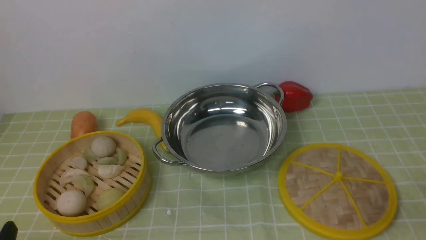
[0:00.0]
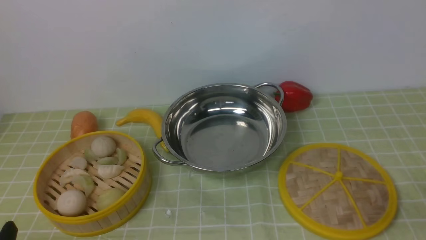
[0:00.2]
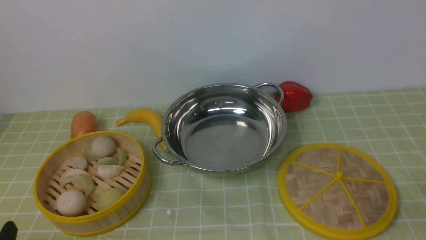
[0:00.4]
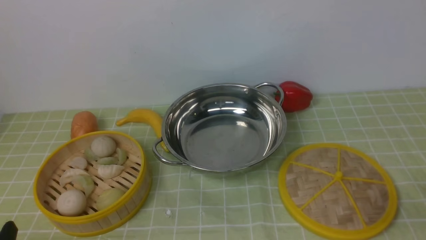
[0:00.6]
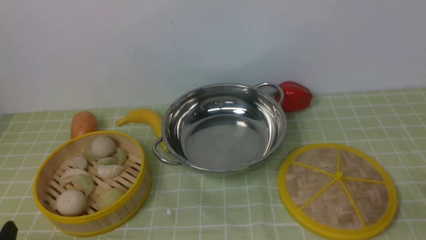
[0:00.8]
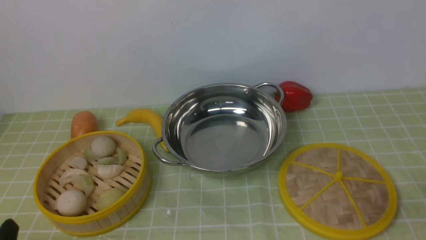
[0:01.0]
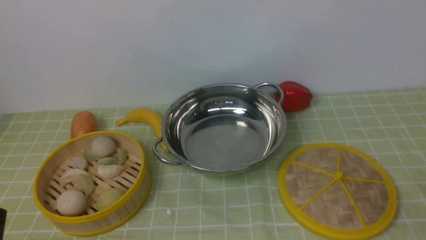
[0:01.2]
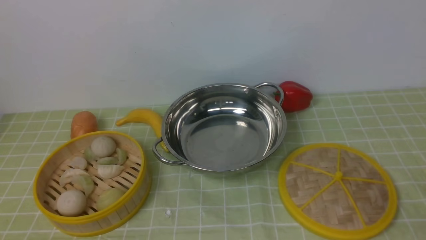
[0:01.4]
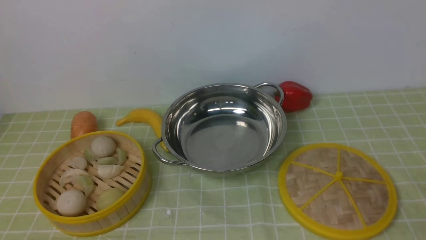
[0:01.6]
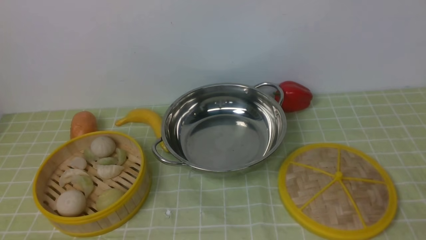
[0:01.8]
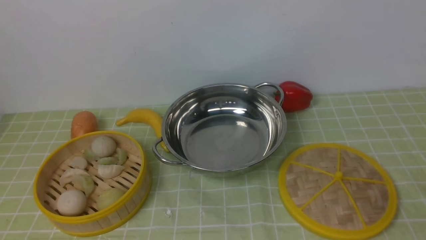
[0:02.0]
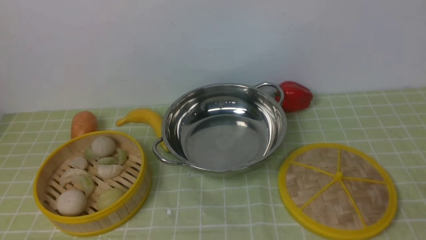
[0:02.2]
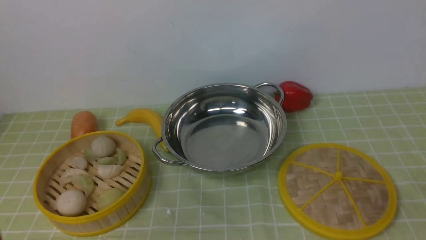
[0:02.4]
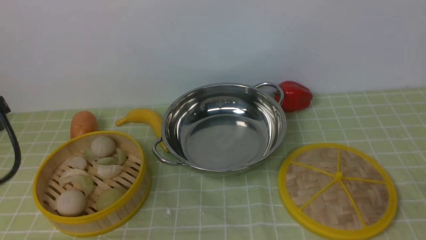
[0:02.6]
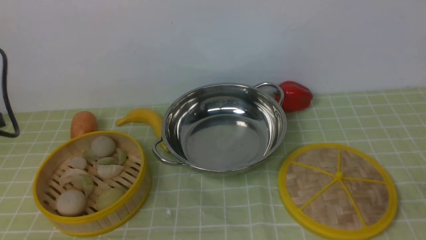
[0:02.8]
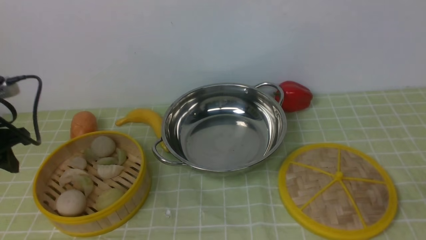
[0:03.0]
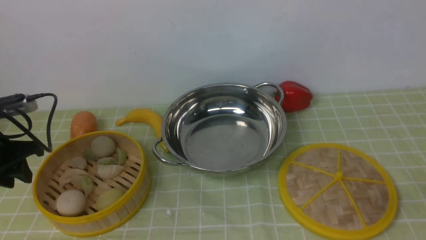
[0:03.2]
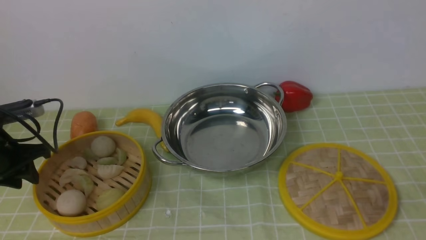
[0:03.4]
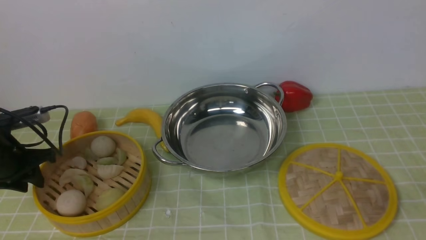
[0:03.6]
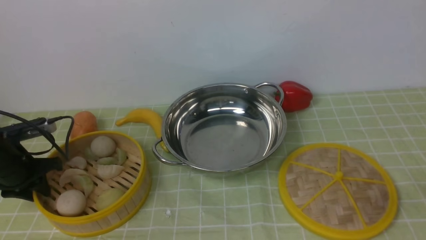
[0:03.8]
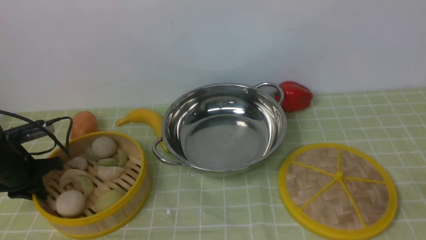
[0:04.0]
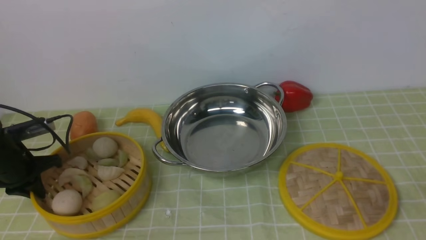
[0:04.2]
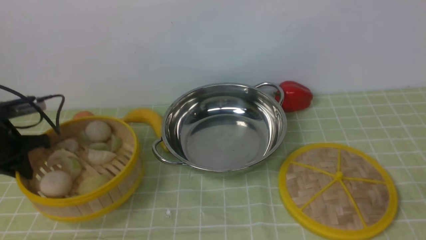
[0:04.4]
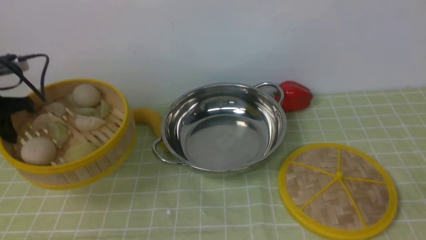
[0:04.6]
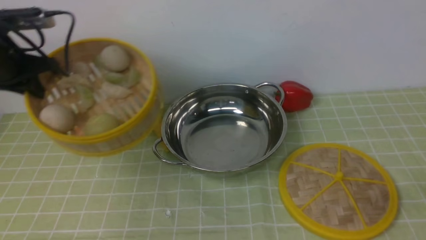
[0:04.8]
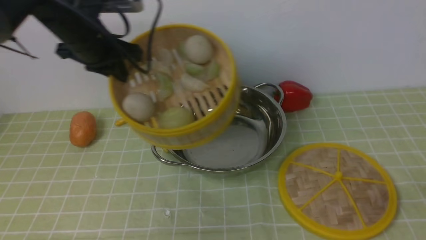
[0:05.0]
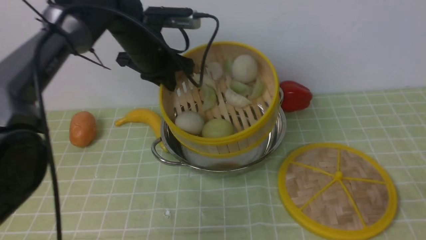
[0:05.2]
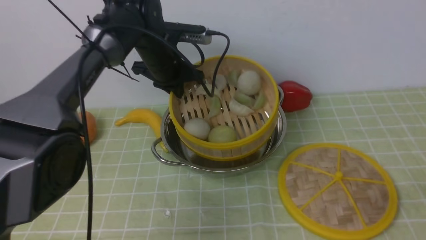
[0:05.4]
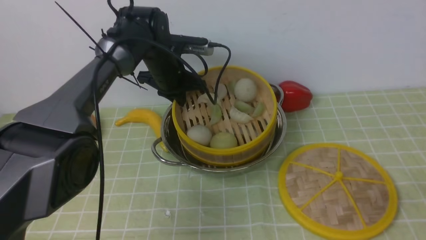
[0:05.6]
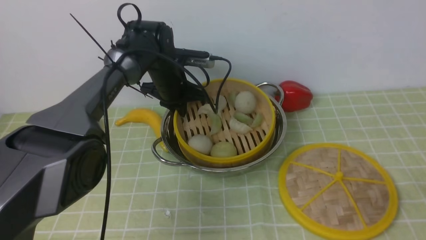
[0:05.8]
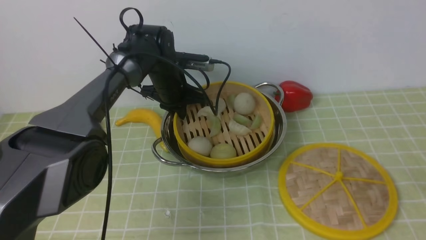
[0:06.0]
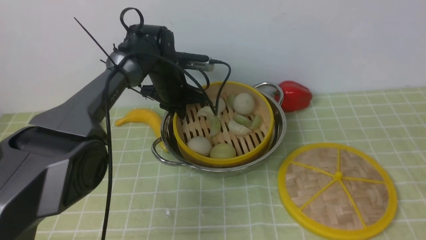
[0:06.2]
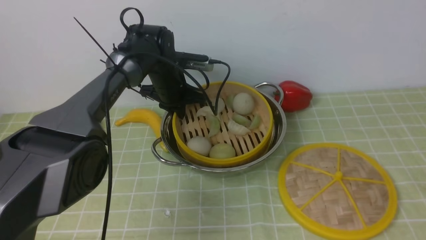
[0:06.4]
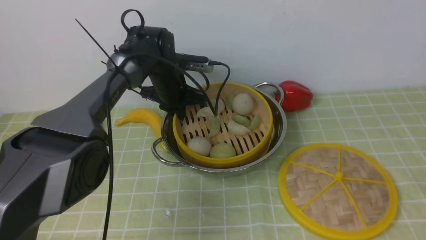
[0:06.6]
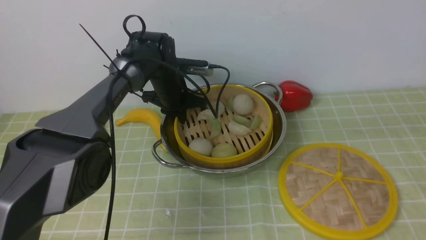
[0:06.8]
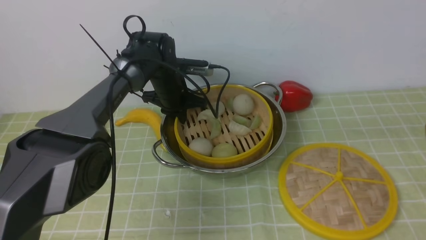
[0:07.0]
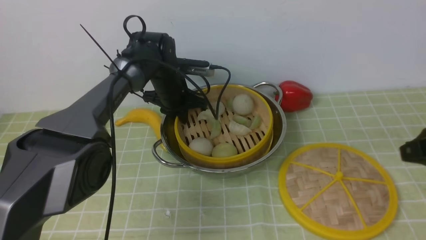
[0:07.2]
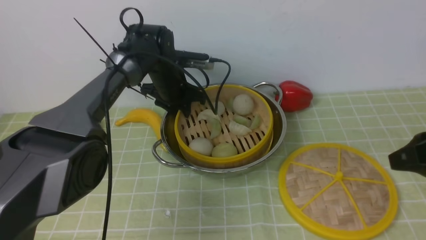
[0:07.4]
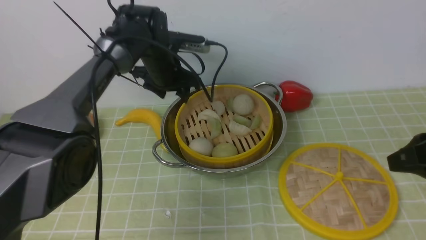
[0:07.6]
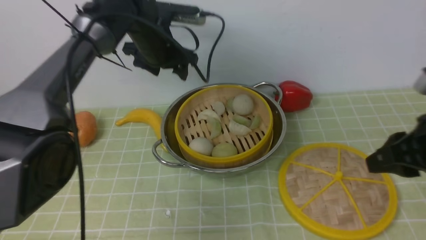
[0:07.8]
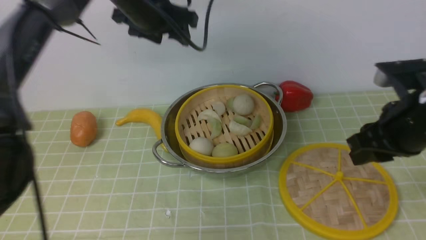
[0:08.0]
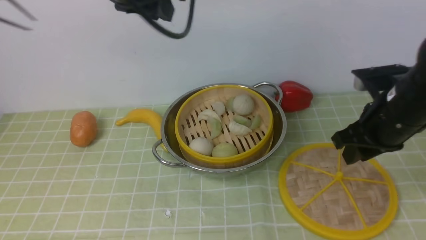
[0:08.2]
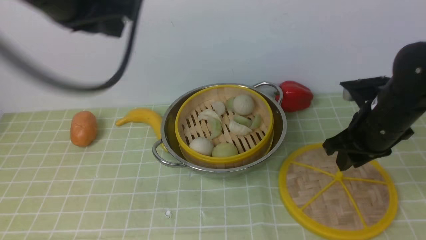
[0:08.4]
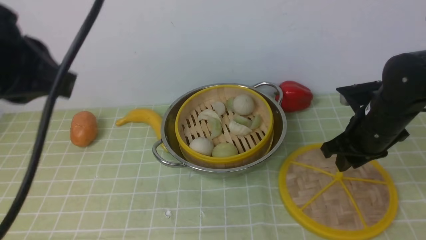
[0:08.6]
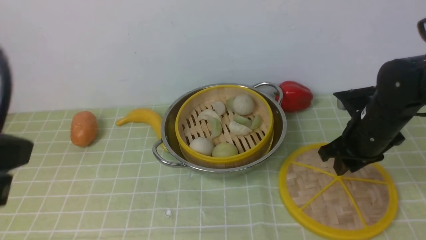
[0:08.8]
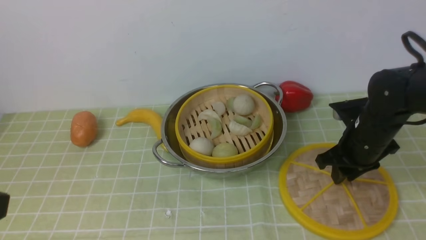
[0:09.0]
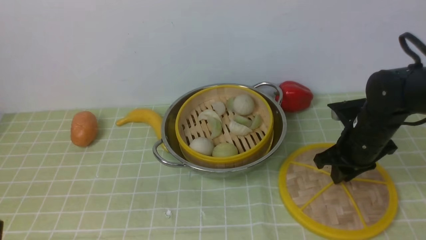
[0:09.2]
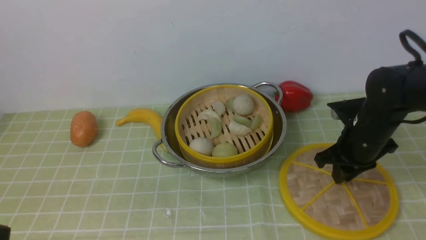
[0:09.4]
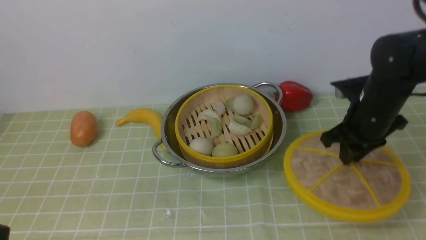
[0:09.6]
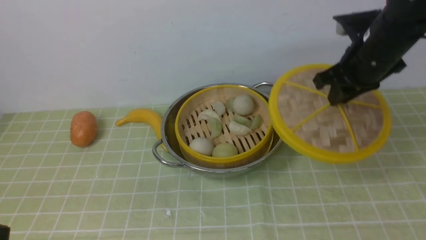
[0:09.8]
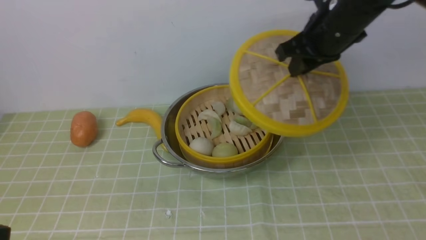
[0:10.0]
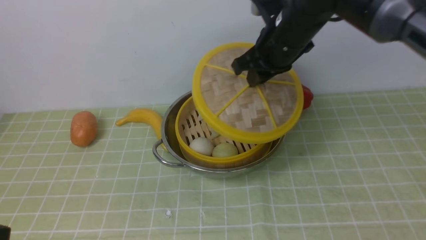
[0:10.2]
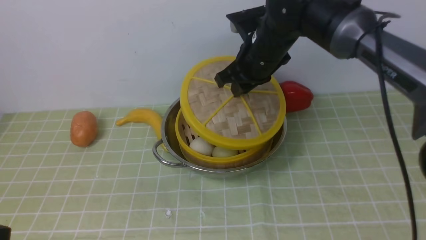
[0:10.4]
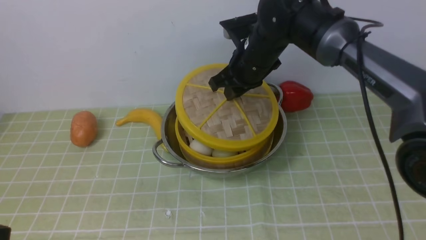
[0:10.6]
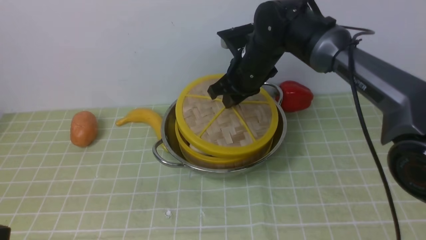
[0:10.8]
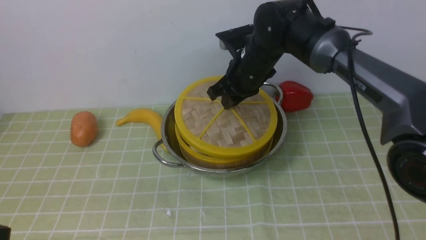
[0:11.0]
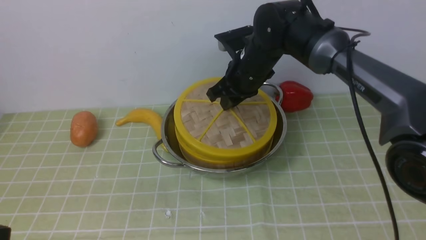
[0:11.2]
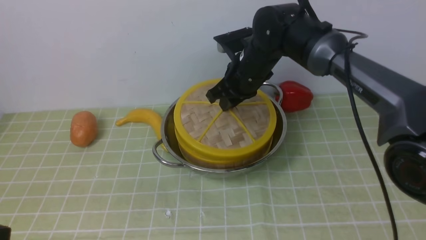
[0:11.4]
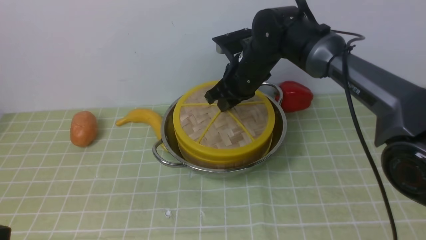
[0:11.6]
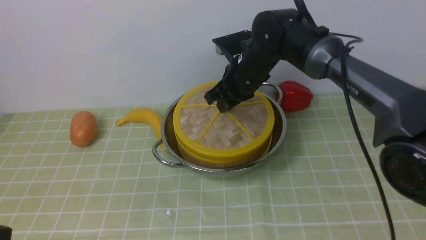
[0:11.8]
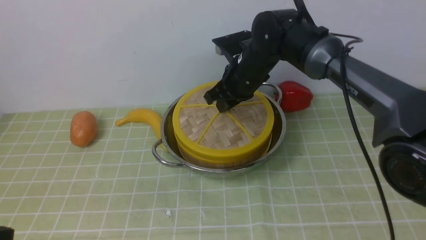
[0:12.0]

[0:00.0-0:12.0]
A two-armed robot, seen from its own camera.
Task of the whole recording: place the steamer in the pot on the green tablecloth, and put the lid on the steamer.
Step, 0:00.0 to 0:04.8: use the left arm to lift the steamer closest to it.
Step, 0:05.0 to 0:07.8: use the left arm to put the steamer into the iron steamer pot in the middle.
Step, 0:08.0 to 0:09.8: use the right arm to lift the lid of the steamer.
0:01.6 to 0:03.0: The left gripper moves forward, about 25 cm.
0:03.0 to 0:04.4: The left gripper travels forward and downward by roughly 10 cm, and closes up.
0:04.4 to 0:06.0: The right gripper heads upward, covering about 5 cm; the left gripper goes some 30 cm to the right and forward.
0:06.0 to 0:07.6: The right gripper moves forward, roughly 15 cm. Meanwhile the left gripper heads upward, covering approximately 5 cm, and opens up.
0:07.6 to 0:09.0: The right gripper goes roughly 15 cm forward and downward, while the left gripper shifts approximately 40 cm backward, and closes its fingers.
0:09.0 to 0:10.4: The right gripper moves to the left, upward and forward, approximately 20 cm.
0:10.4 to 0:12.0: The right gripper shifts some 5 cm downward.

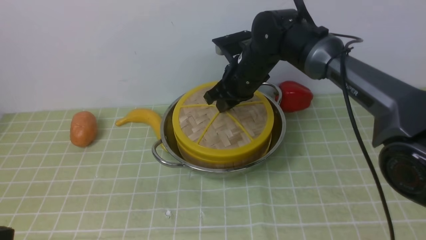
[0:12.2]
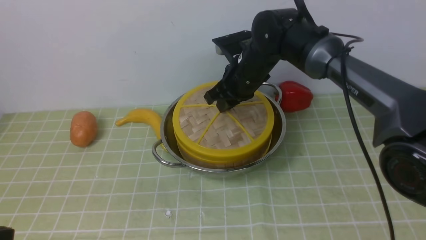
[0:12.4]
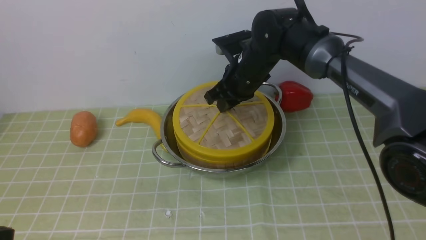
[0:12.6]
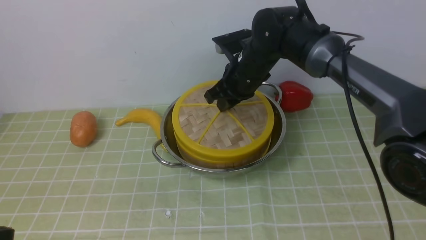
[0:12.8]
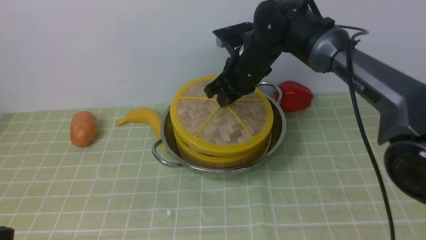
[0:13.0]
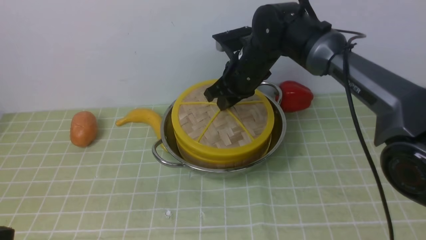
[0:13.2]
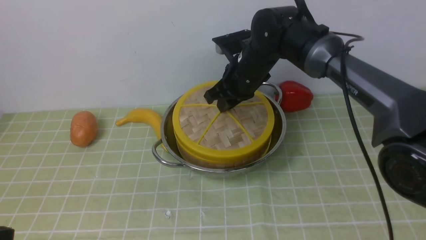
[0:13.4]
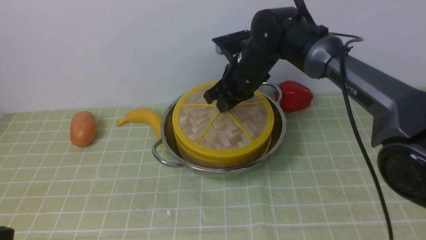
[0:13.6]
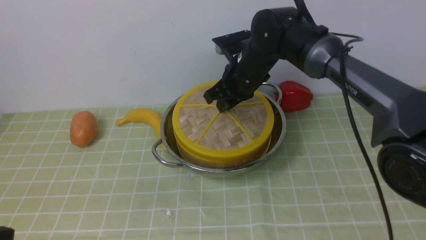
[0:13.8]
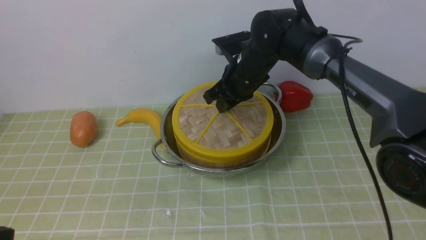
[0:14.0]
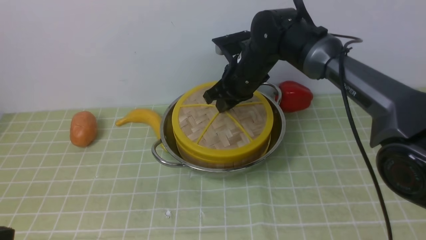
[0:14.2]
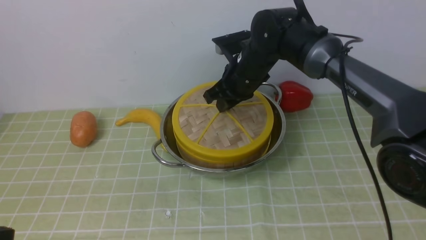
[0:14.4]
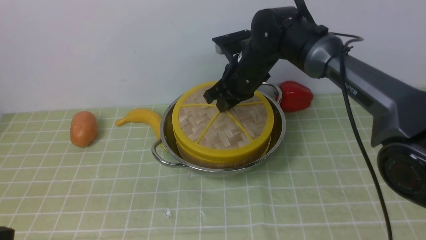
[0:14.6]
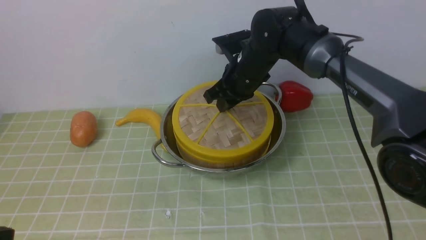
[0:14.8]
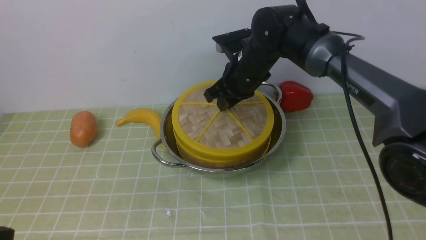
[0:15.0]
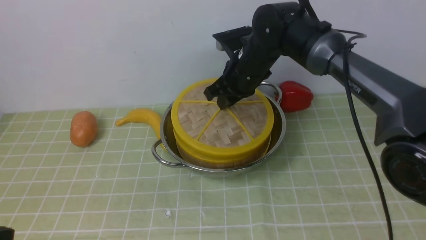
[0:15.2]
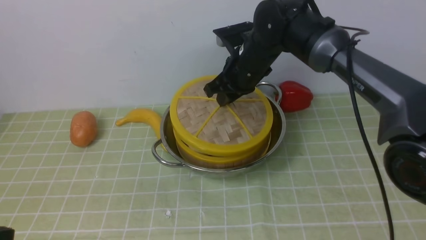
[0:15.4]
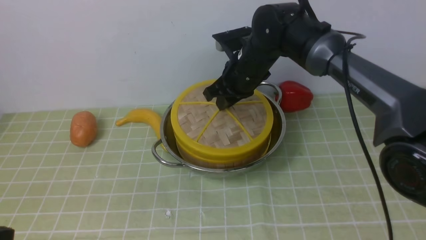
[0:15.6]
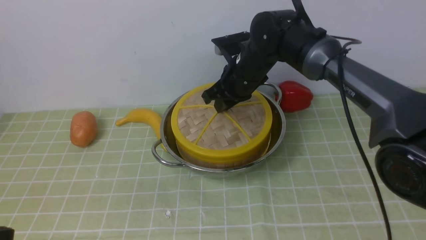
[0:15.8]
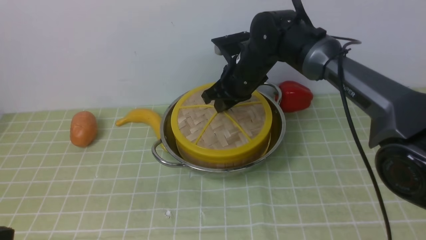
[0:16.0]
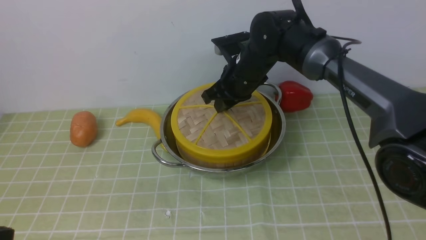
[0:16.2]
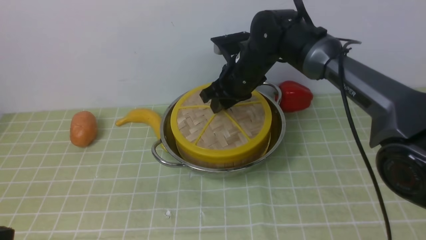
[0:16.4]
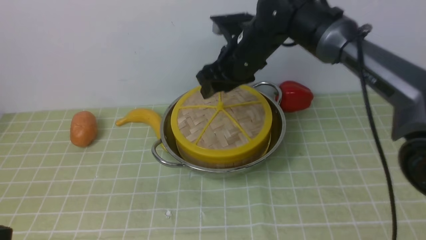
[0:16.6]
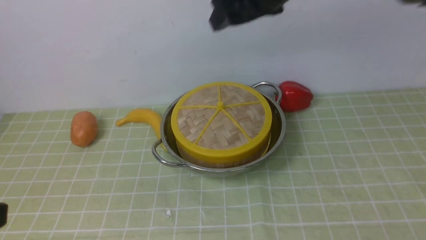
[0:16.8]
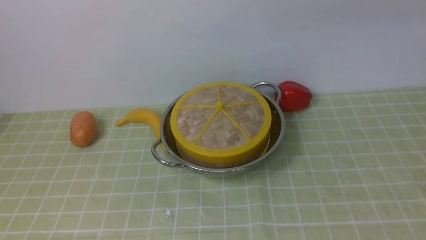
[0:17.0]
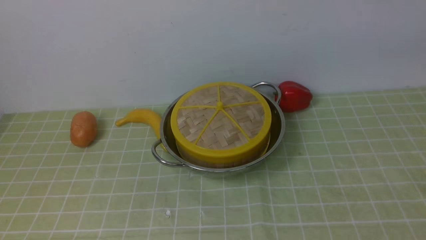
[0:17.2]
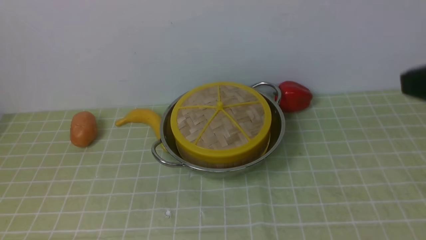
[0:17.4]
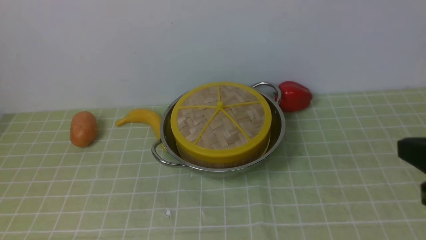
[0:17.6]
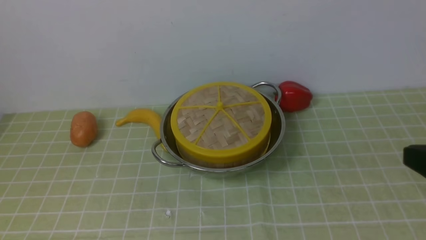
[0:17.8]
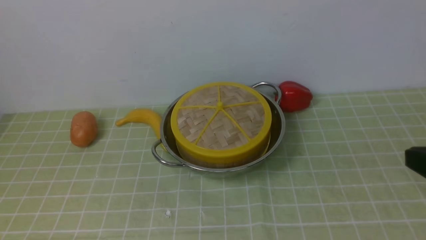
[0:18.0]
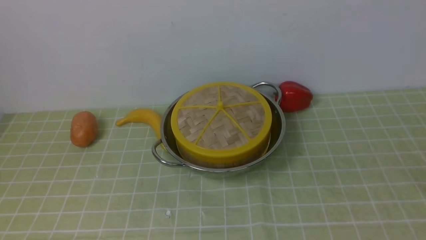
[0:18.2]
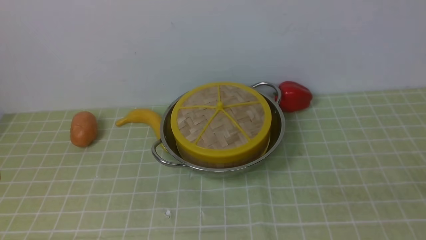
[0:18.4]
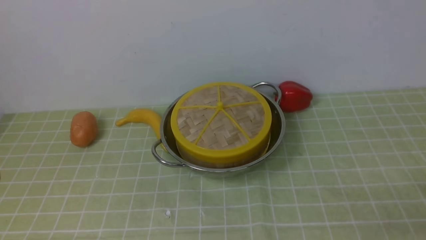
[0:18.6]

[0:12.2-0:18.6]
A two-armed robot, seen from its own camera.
Task of the whole recording: place the steamer in the pot on the green tablecloth, and put the lid on the steamer.
Step, 0:12.2 to 0:17.2: use the right arm to place the steamer lid on the steamer.
0:12.2 to 0:13.8: The two grippers keep their place.
0:13.8 to 0:15.4: The two grippers keep their place.
0:15.4 to 0:17.0: The right gripper moves upward, backward and to the right, some 30 cm, and opens.
0:17.0 to 0:18.6: The right gripper travels downward, backward and to the right by roughly 40 cm, and closes its fingers.
